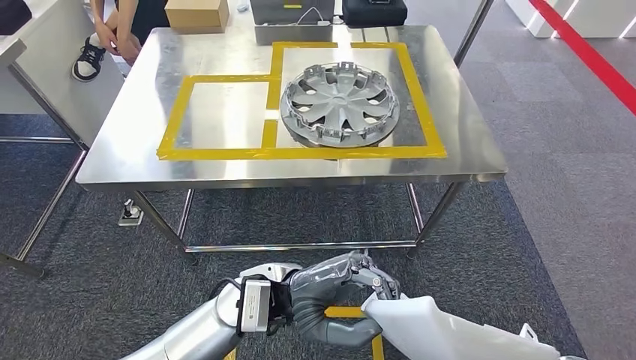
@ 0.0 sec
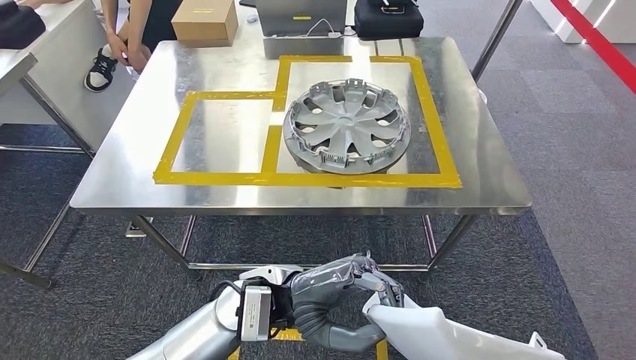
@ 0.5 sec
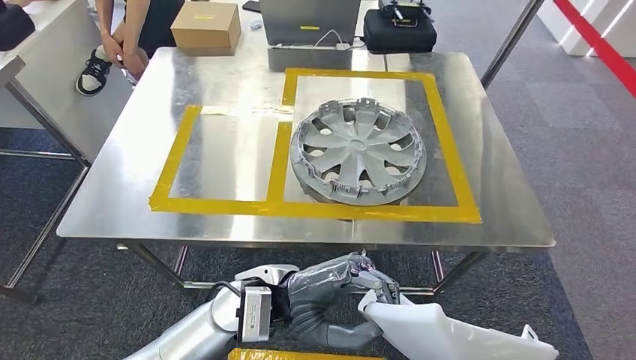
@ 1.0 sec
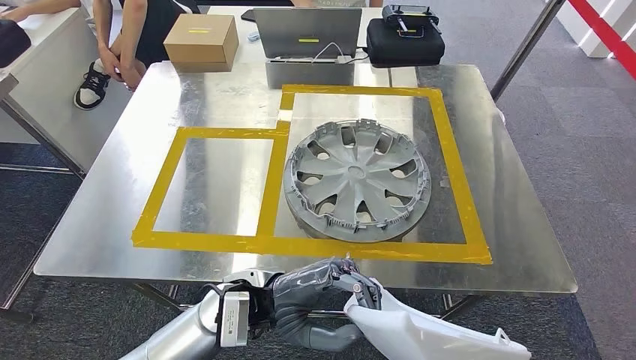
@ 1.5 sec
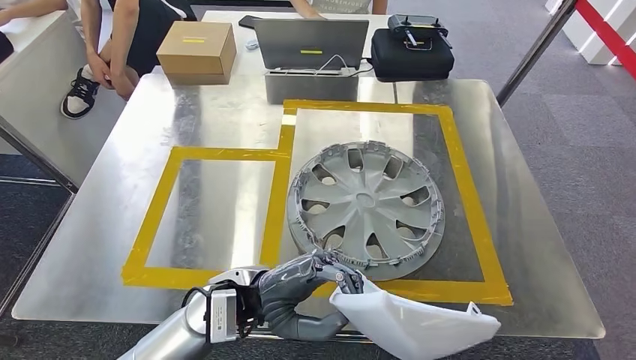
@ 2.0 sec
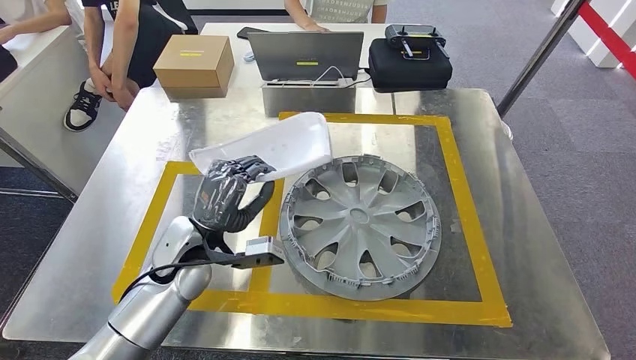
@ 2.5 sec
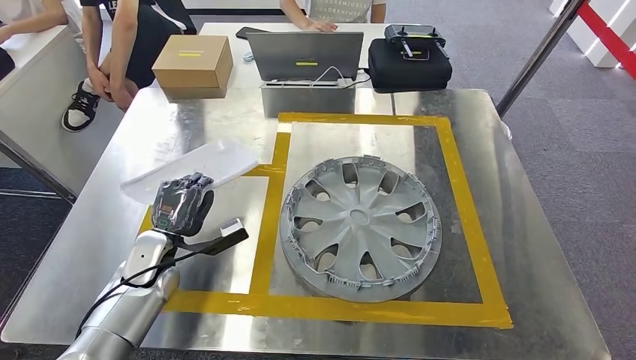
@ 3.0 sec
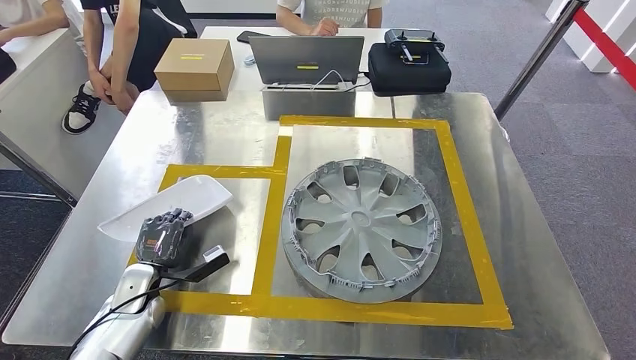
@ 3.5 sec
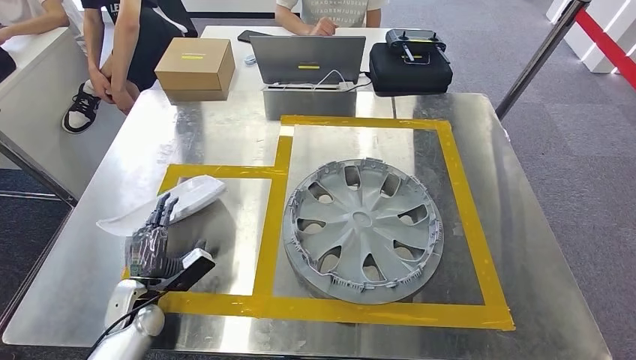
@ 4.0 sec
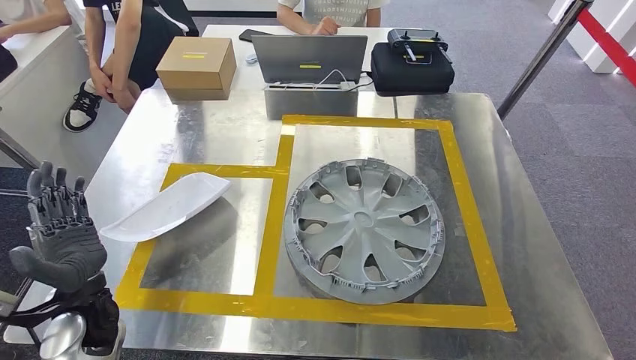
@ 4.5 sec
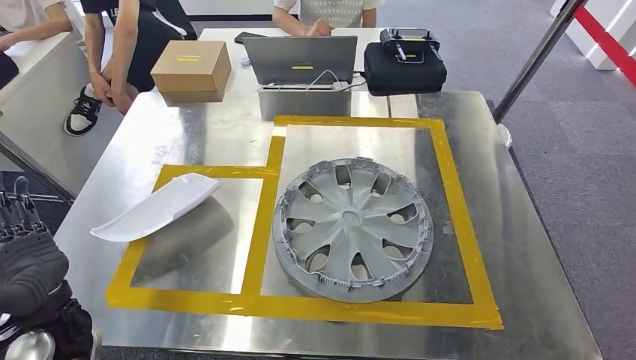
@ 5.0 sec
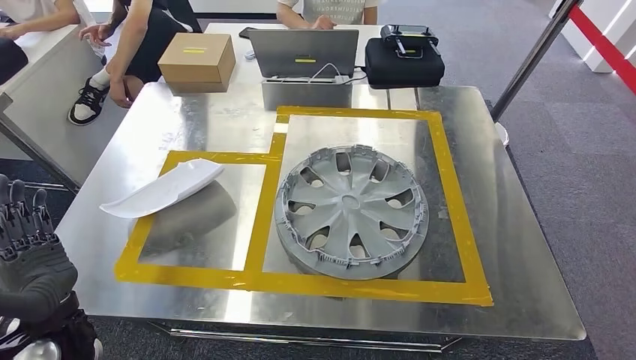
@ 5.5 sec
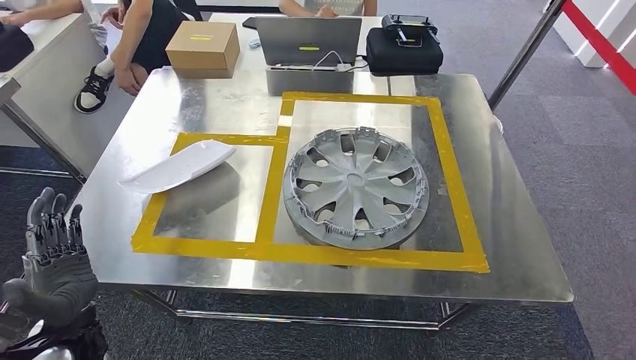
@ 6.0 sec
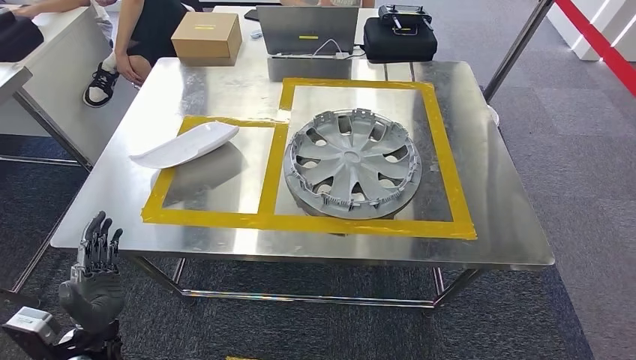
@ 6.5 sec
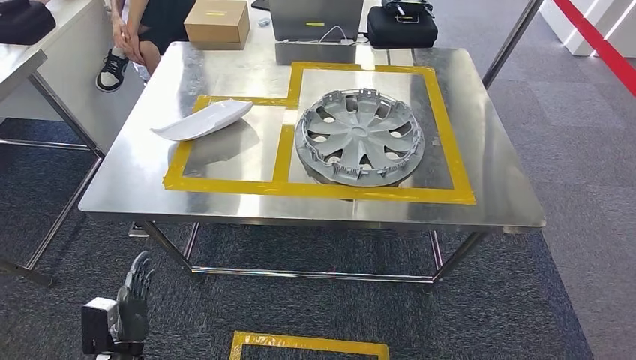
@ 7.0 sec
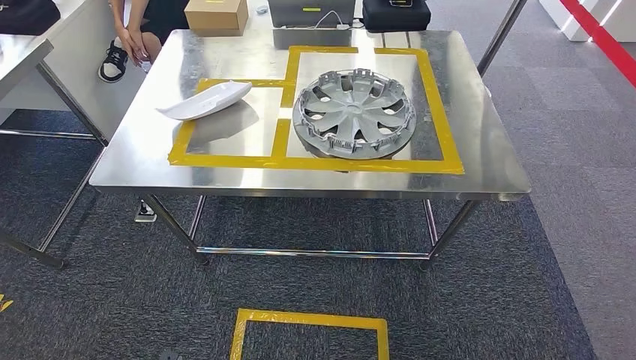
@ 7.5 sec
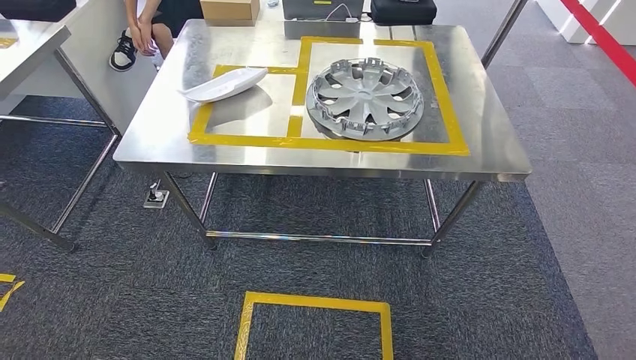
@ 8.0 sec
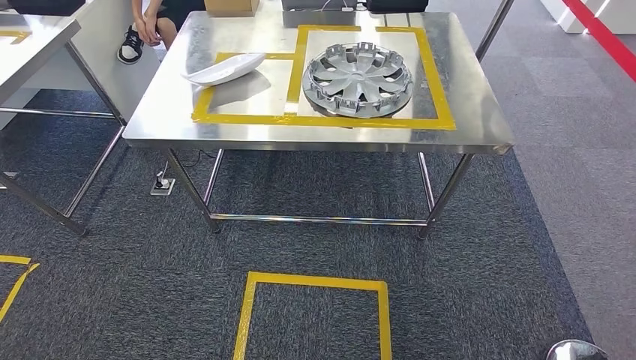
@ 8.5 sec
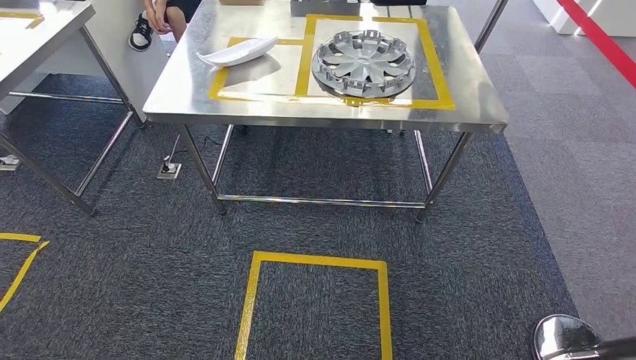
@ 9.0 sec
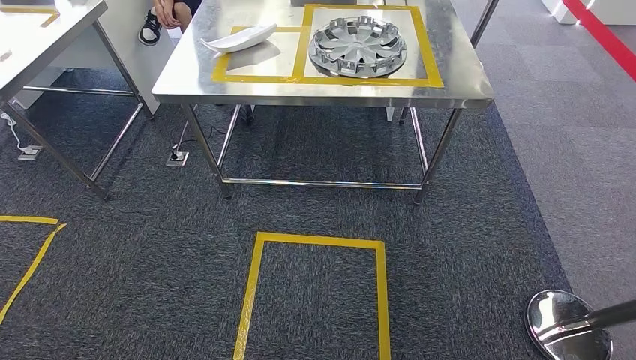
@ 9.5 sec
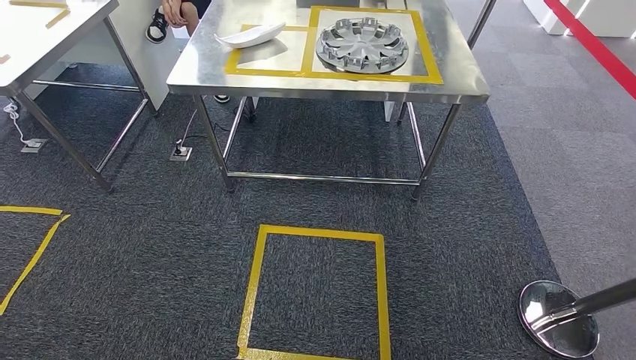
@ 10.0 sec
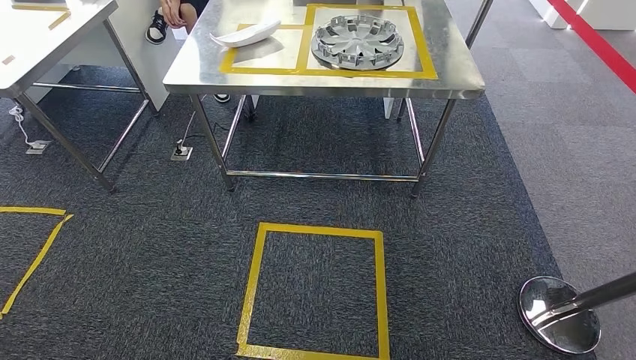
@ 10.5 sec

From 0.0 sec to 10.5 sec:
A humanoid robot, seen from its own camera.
Step, from 0.0 sec to 2.0 sec: Move the small component to the workbench.
Step, from 2.5 sec to 5.5 sec: Insert the small component into the corresponding slot on the workbench.
Step, from 6.0 sec to 10.5 sec: Return to the initial position at the workbench.
